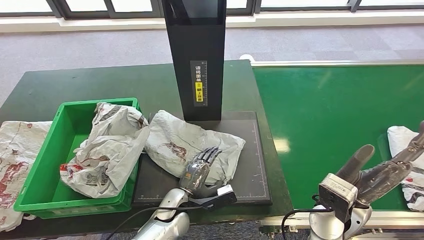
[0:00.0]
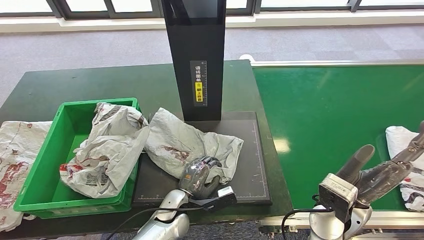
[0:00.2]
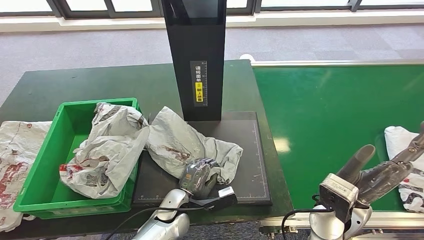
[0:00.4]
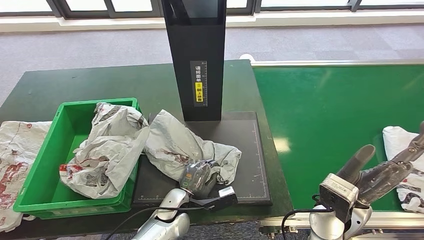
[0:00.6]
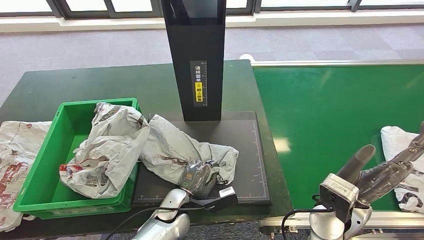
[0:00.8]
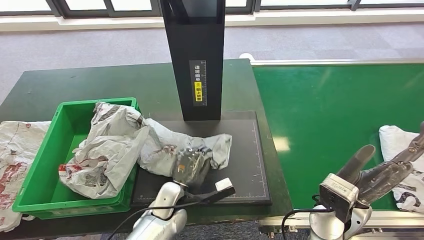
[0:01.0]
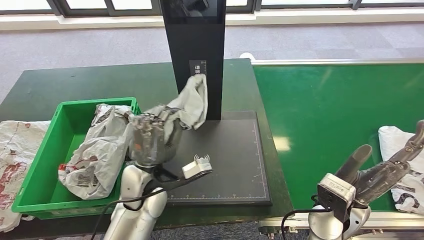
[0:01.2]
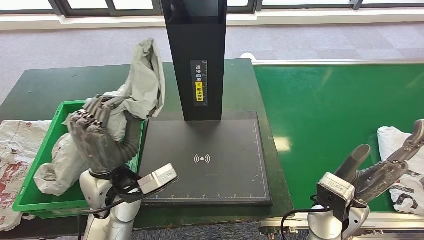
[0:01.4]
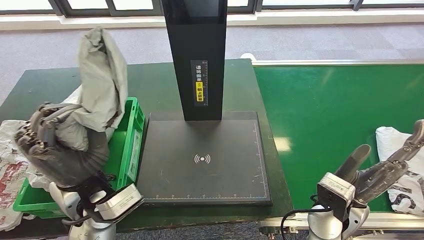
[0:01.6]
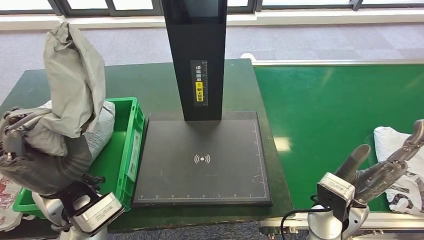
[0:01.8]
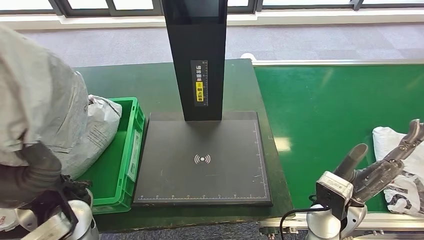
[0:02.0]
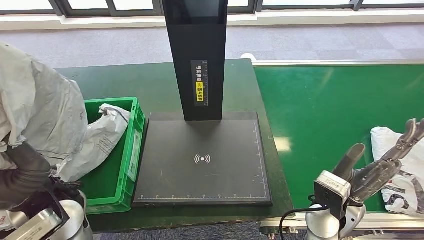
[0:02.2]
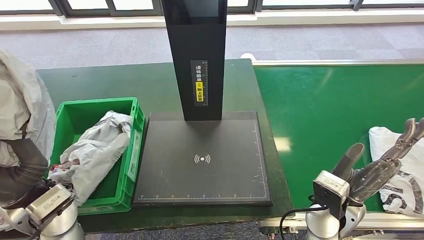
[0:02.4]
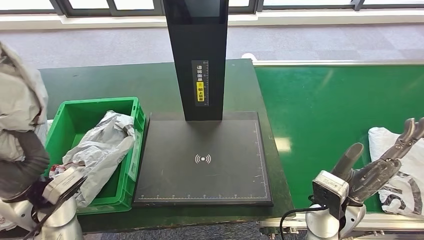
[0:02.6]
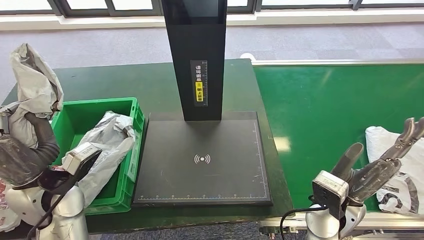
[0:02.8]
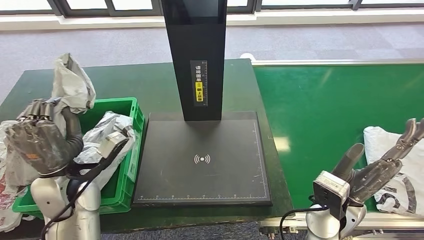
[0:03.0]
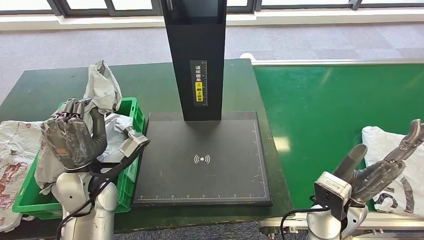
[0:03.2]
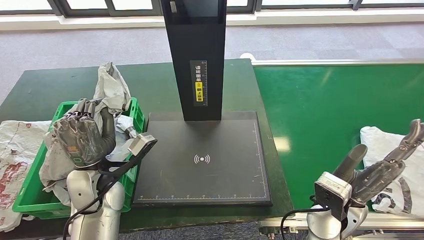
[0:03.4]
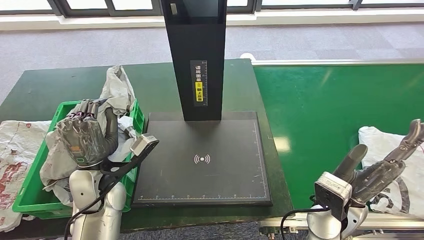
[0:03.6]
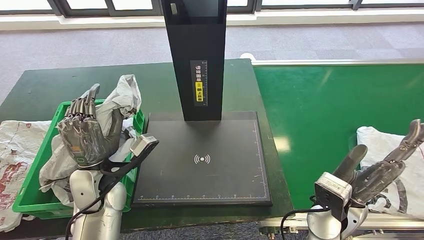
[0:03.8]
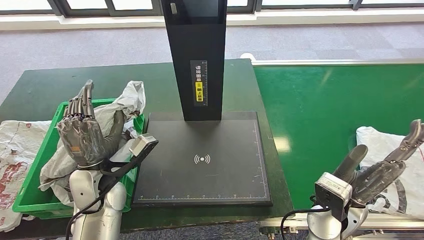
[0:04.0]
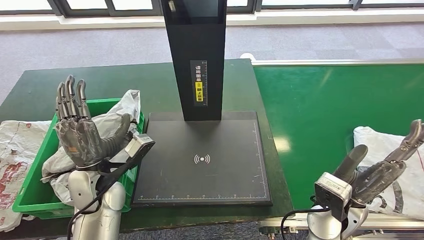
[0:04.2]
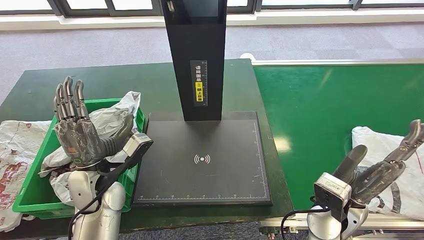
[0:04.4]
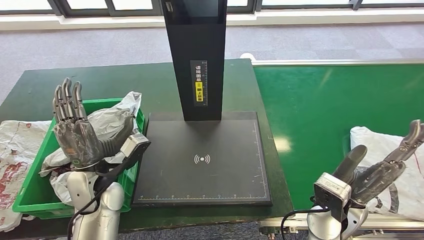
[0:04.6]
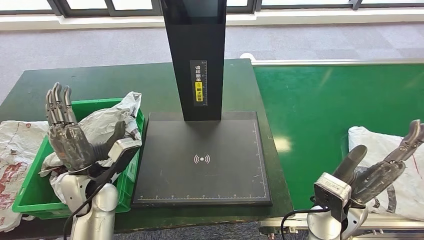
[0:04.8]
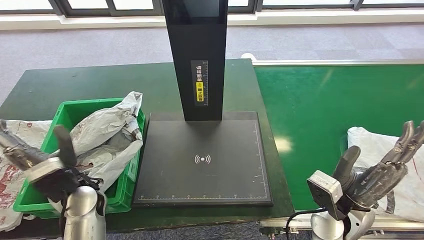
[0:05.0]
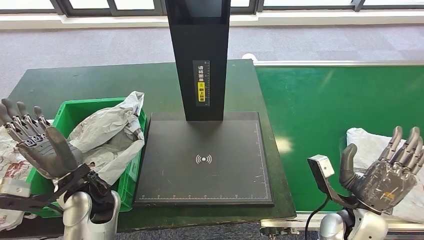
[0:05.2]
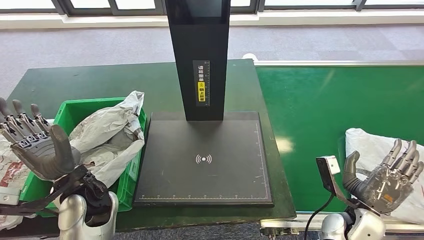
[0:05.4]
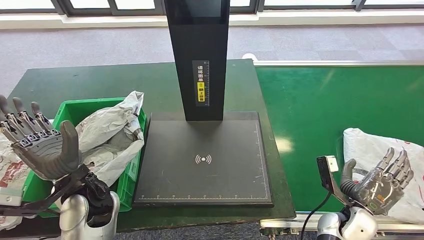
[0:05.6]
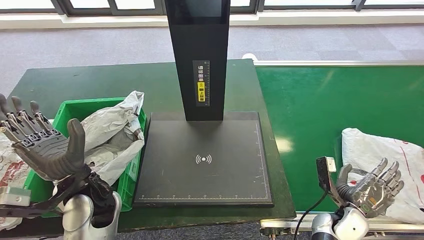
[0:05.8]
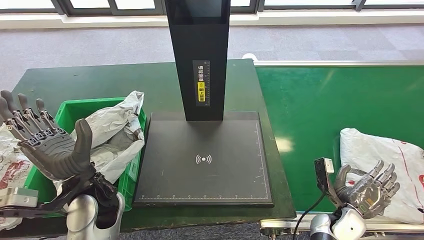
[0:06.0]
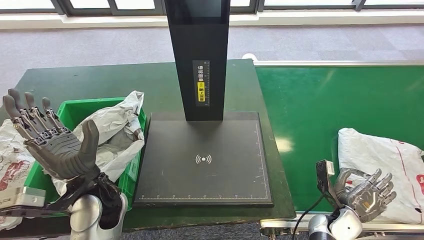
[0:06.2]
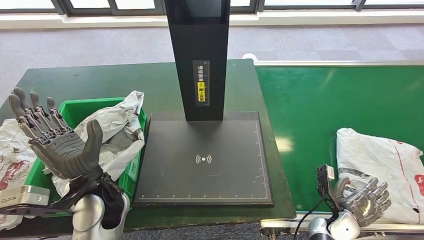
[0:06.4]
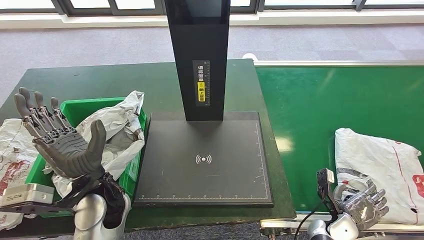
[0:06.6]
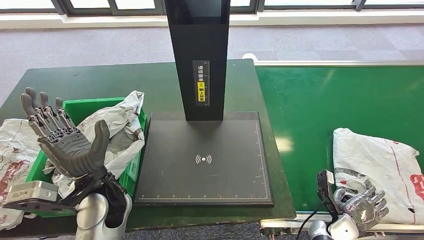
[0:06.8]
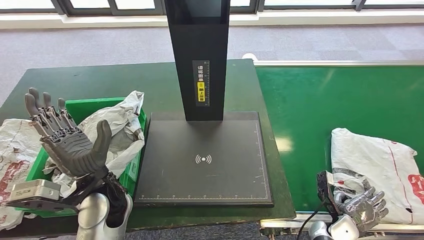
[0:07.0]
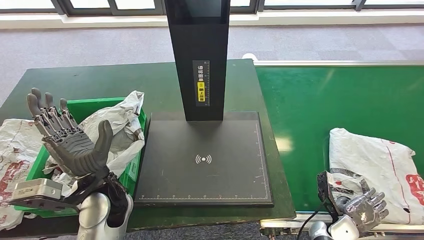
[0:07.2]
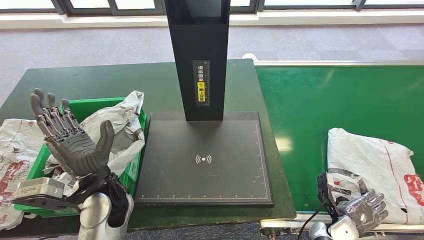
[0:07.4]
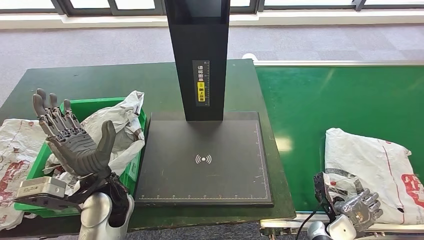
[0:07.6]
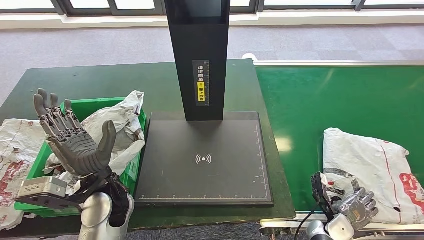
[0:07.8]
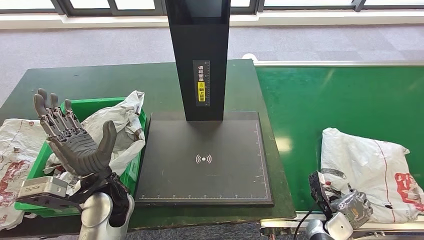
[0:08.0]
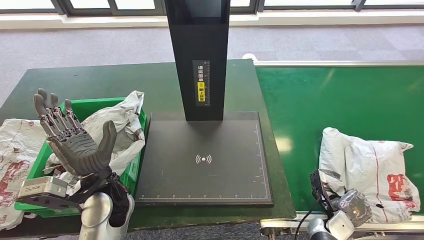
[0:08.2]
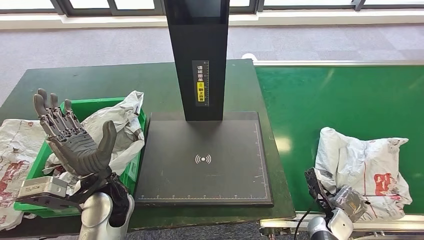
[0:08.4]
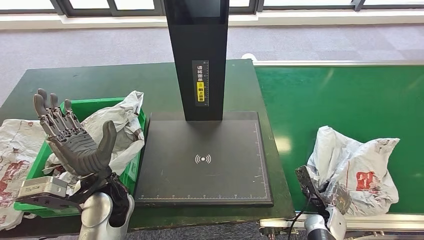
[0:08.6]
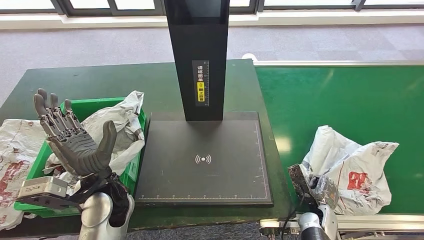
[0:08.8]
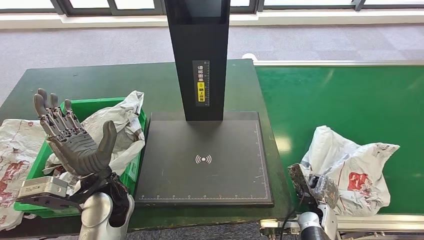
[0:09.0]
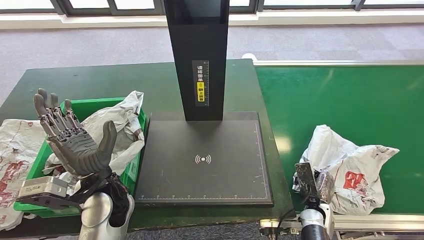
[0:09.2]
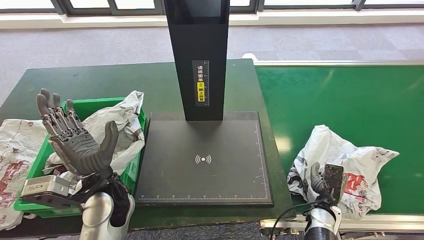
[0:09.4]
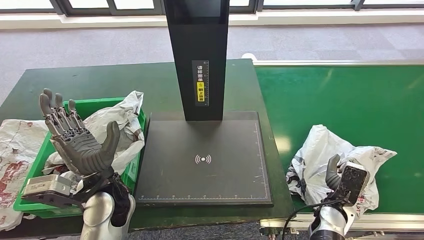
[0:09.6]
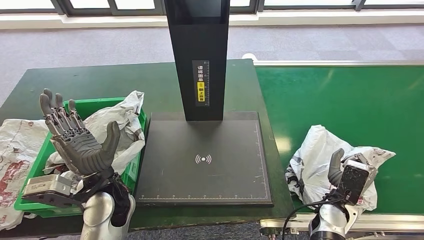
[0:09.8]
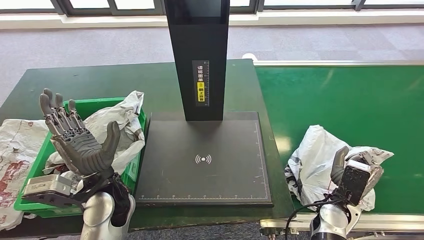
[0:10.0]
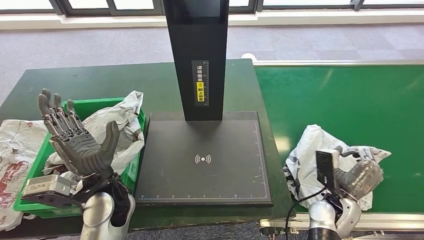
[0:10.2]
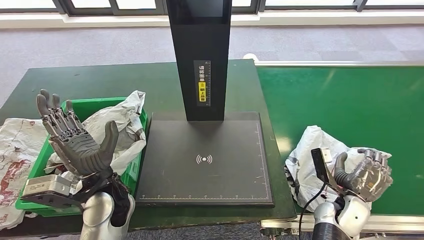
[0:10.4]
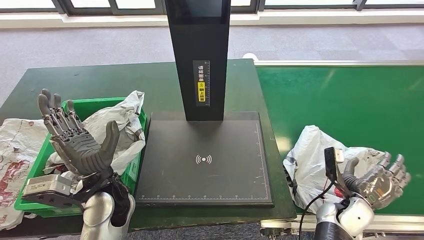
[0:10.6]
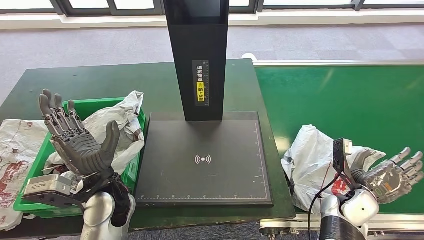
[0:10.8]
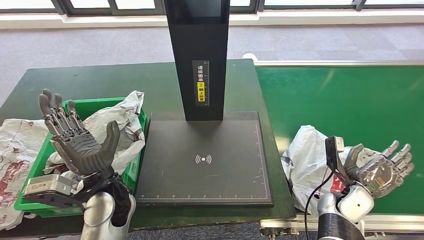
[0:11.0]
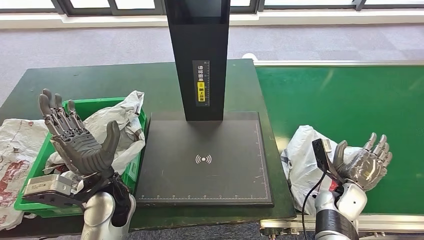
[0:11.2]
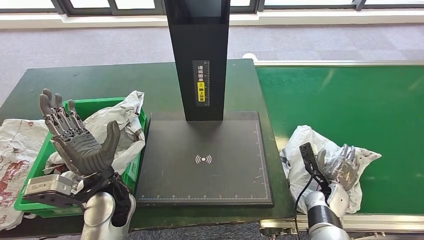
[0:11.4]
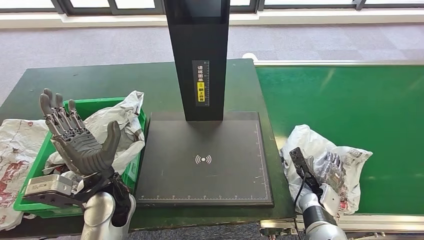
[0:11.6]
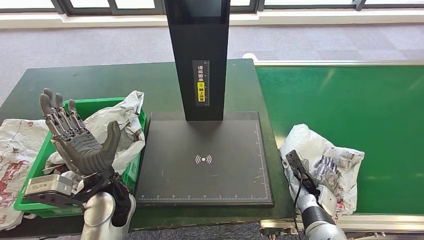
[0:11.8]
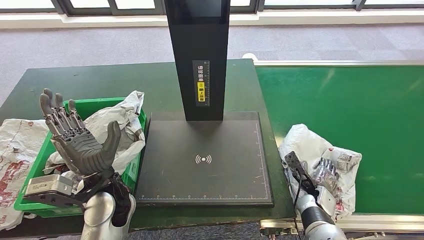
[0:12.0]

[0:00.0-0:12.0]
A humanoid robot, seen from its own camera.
Step, 0:00.0 to 0:01.6: Pick up the parcel from the inbound machine.
Step, 0:01.8 to 0:05.0: Place the parcel into the delivery box.
0:03.0 to 0:04.4: The left hand changes place by about 5 cm.
0:06.0 to 0:07.6: The right hand shifts roughly 5 cm downward.
0:09.0 to 0:10.4: The right hand travels upward by approximately 10 cm.
0:10.4 to 0:12.0: The right hand shifts roughly 10 cm downward.

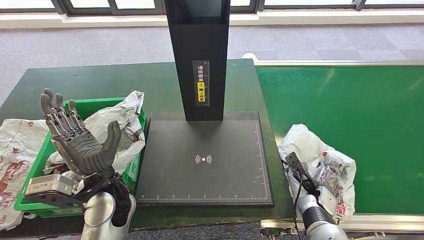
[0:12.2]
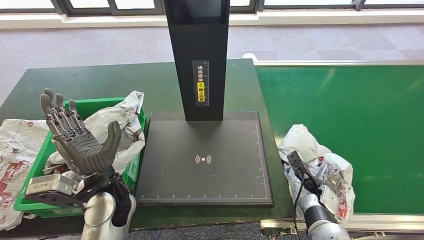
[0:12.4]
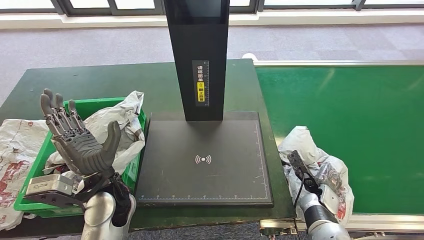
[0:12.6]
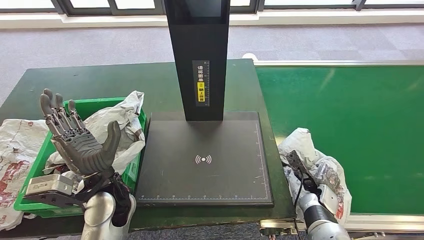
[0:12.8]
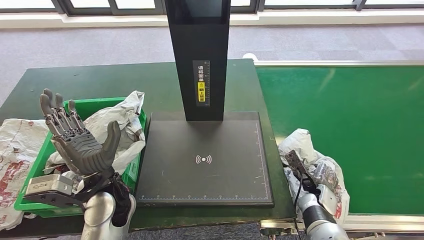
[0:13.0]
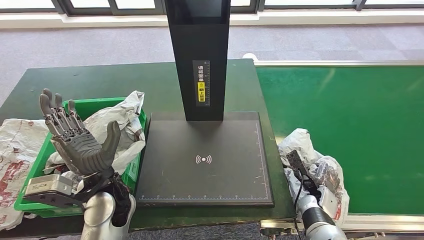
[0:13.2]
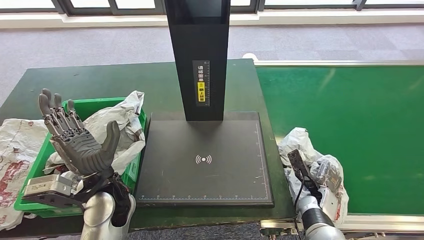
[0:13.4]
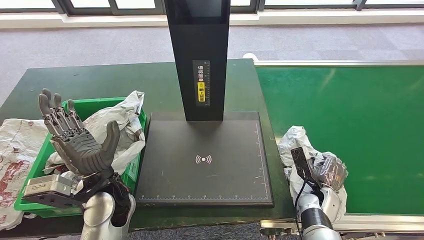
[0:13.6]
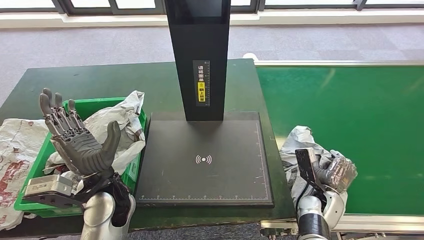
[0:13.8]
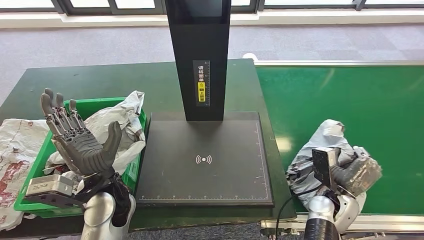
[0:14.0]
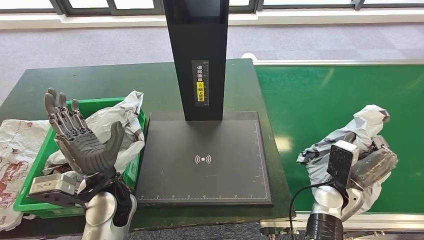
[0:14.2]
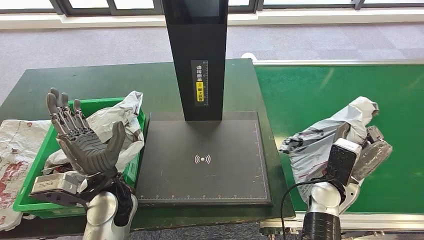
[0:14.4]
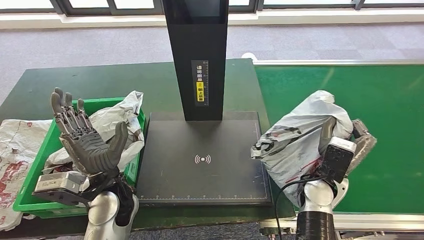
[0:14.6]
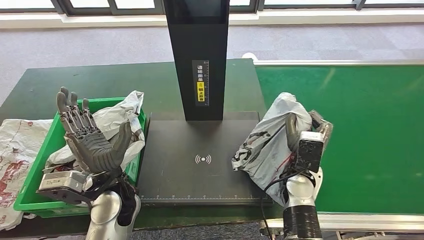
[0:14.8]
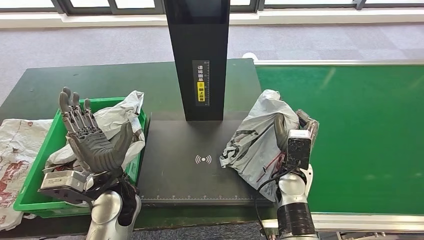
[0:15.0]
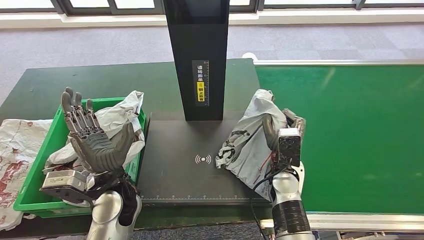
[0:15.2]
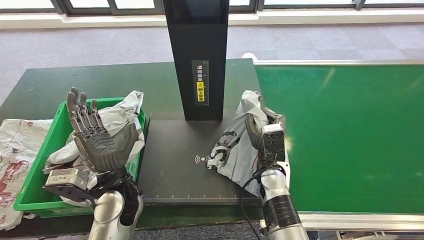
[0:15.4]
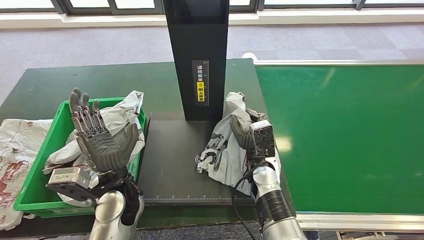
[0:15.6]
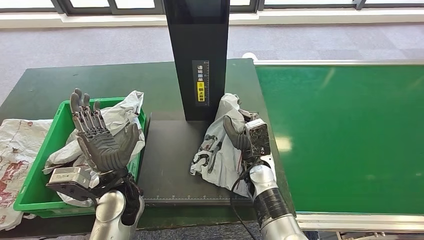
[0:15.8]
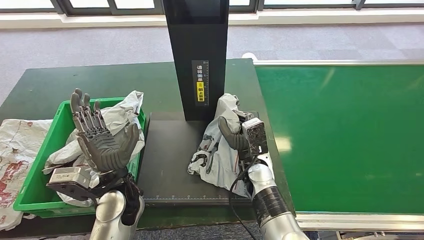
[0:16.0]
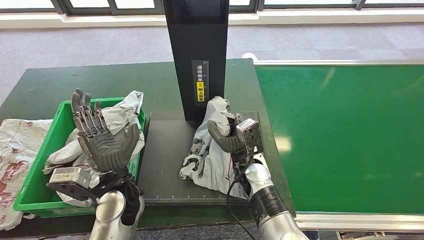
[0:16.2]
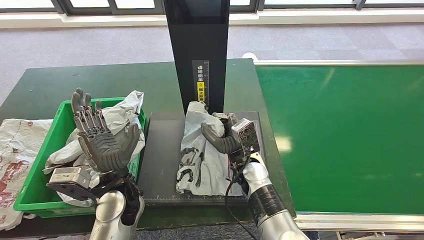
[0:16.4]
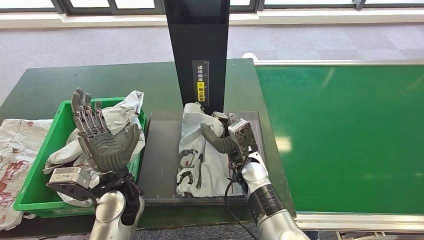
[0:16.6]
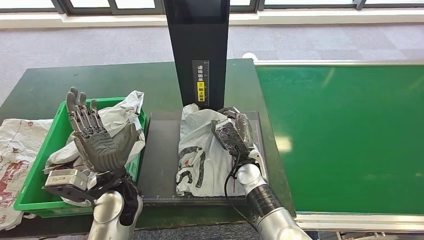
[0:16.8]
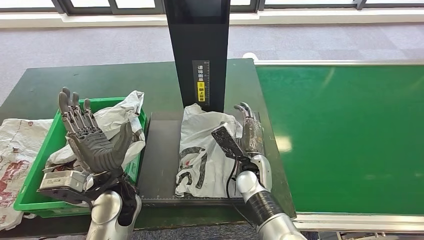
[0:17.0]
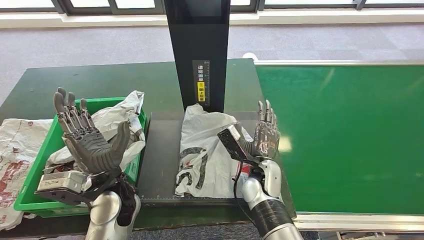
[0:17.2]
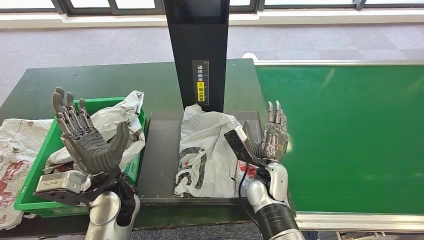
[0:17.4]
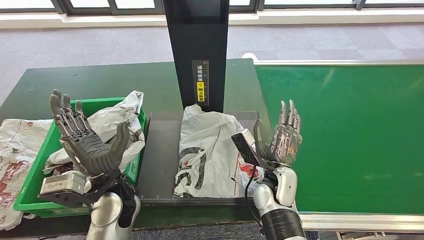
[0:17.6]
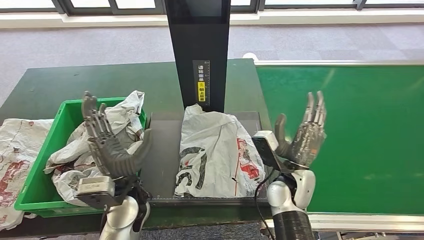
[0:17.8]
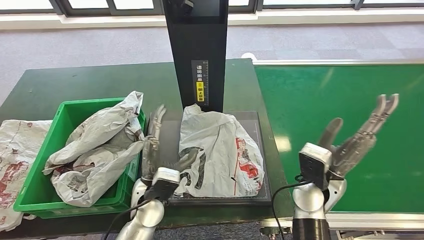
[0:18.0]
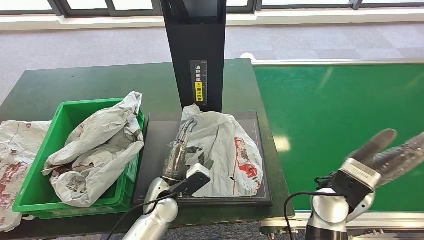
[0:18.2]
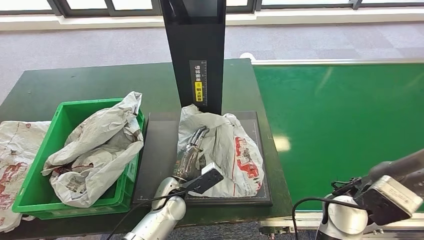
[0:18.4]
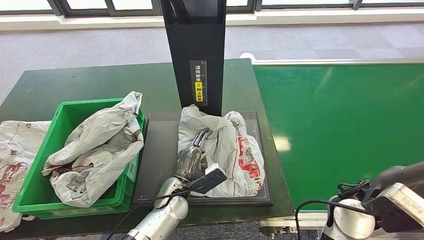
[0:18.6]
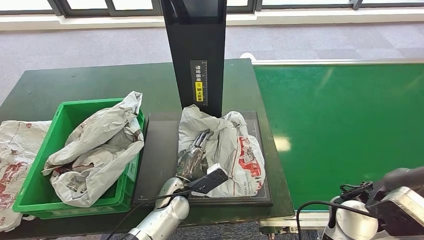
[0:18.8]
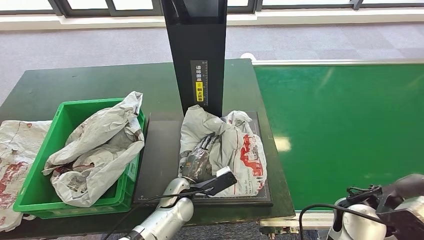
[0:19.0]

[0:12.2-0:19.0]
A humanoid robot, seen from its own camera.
Step, 0:12.2 to 0:14.6: Pick up the parcel from the conveyor belt.
Step, 0:14.8 to 0:17.6: Place the parcel onto the inbound machine.
0:13.6 to 0:15.0: The right hand goes about 20 cm to the left and upward.
0:15.0 to 0:16.2: The right hand travels to the left by approximately 10 cm.
0:16.2 to 0:17.6: The right hand goes roughly 5 cm to the right.
